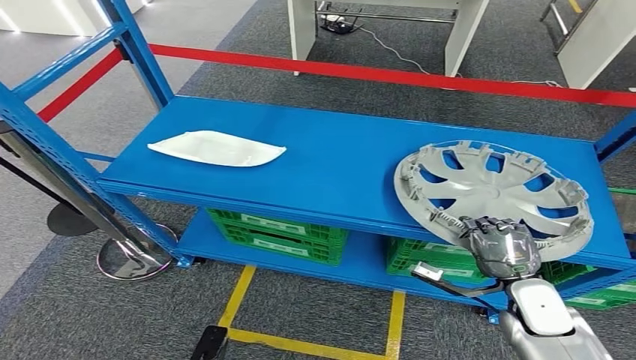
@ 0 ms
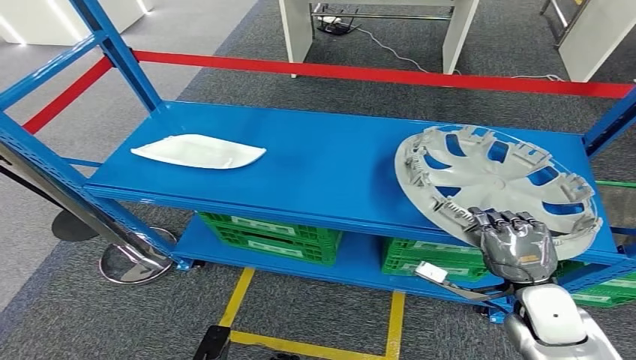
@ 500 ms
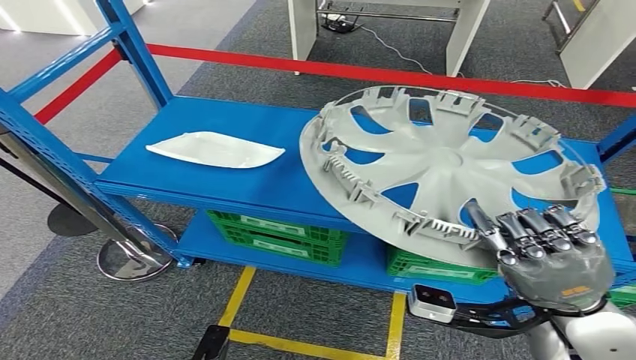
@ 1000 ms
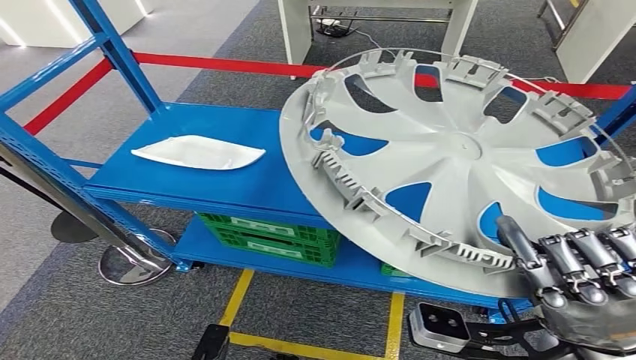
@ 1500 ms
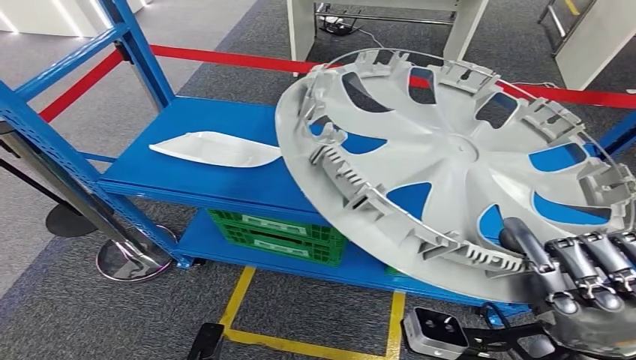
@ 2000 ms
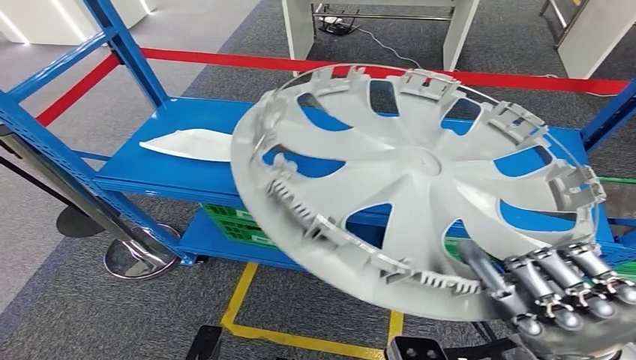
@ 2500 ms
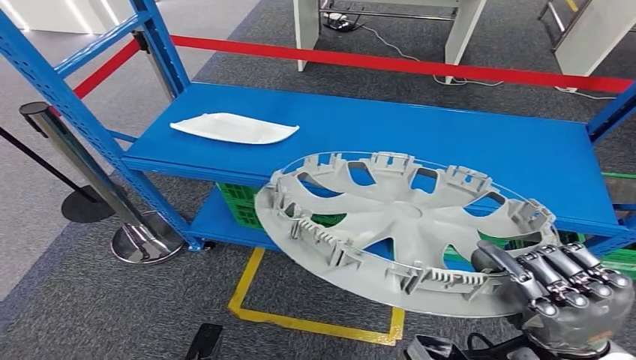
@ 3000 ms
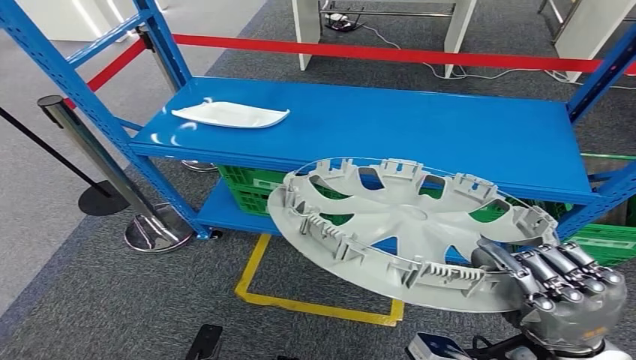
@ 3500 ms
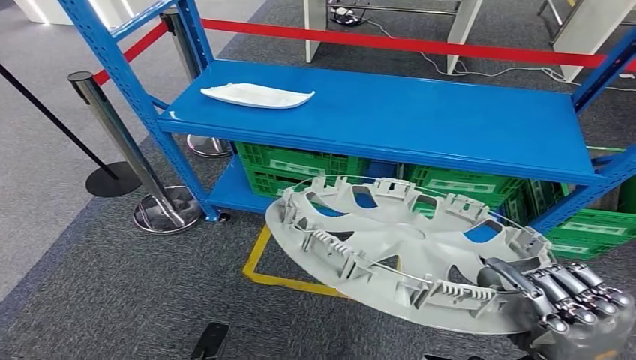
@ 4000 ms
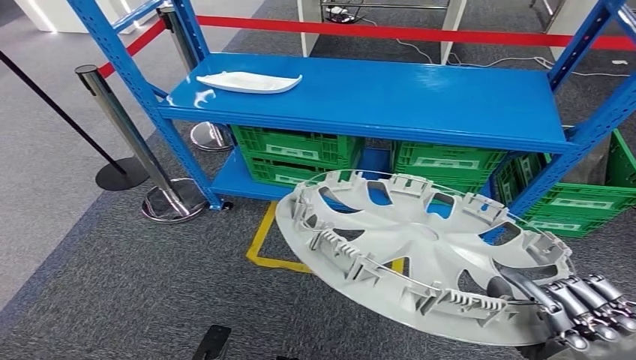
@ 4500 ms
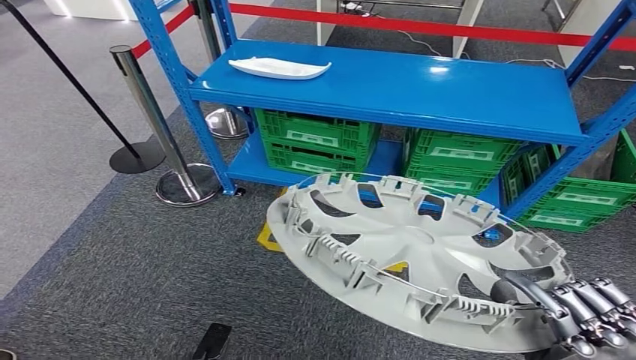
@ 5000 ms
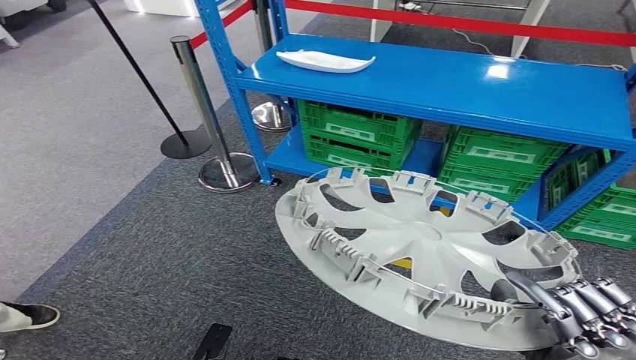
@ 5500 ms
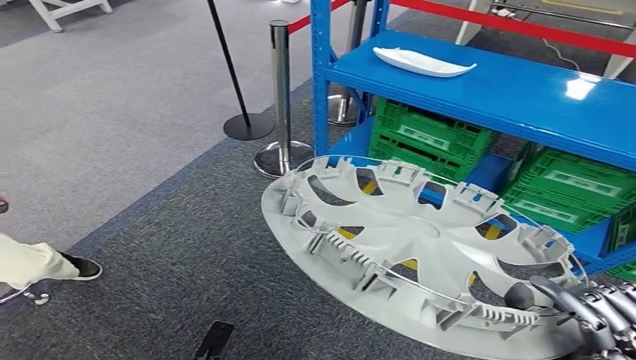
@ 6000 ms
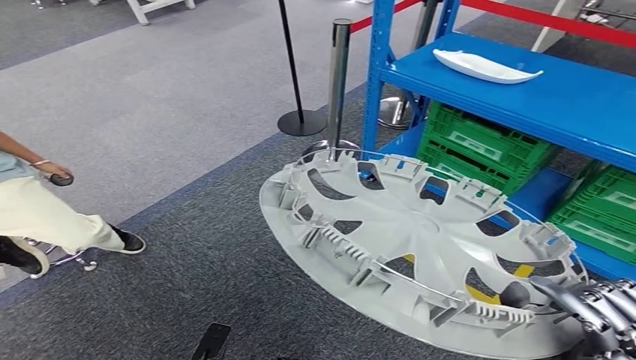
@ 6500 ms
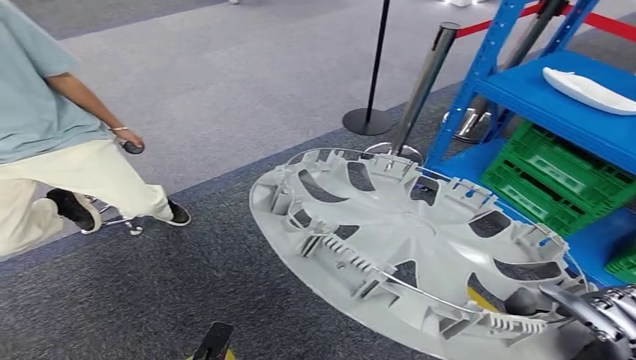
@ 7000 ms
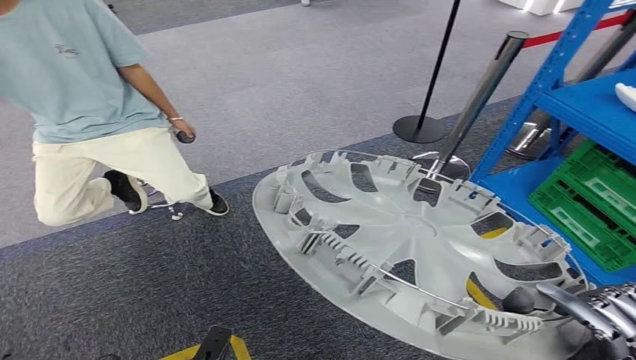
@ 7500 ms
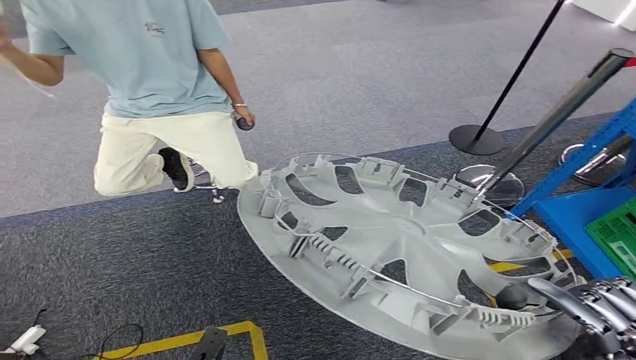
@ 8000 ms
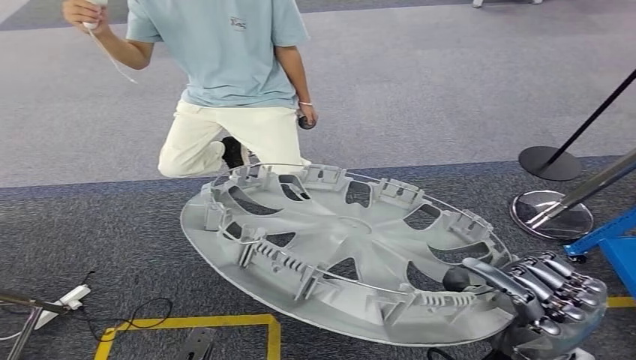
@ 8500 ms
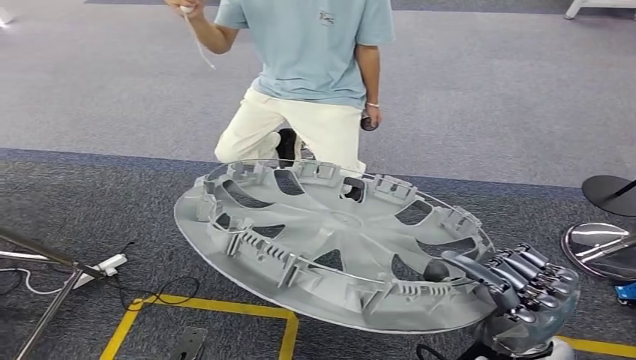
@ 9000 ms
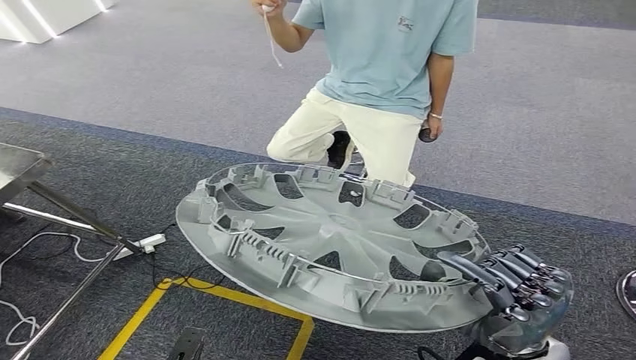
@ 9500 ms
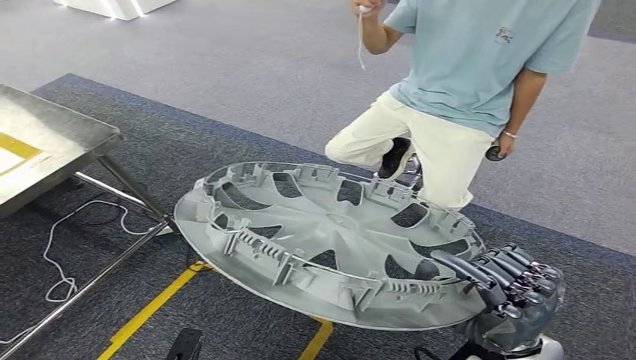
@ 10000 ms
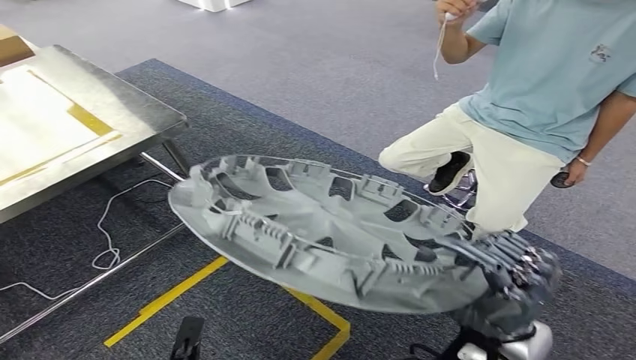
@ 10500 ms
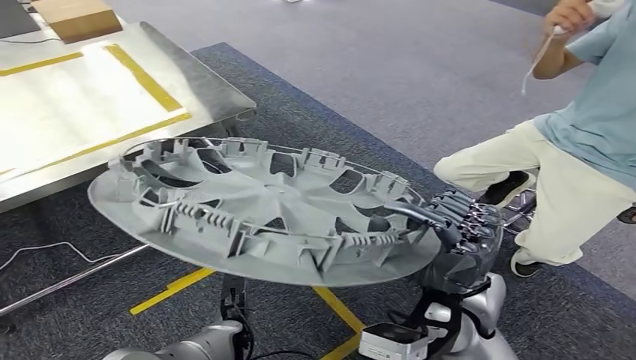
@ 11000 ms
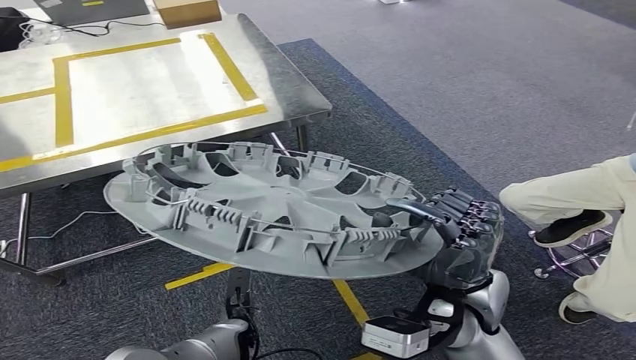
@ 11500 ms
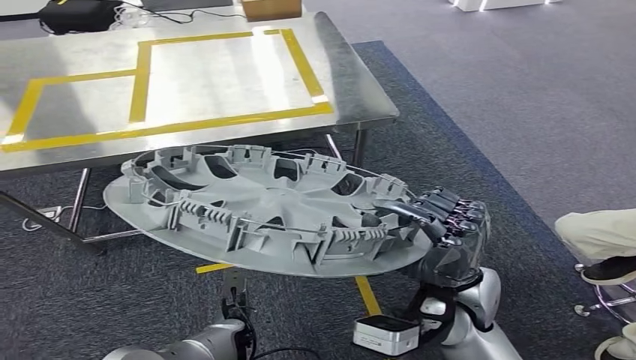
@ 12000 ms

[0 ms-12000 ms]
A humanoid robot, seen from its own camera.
Step, 0 ms to 4500 ms: Pick up the small parts from the shelf.

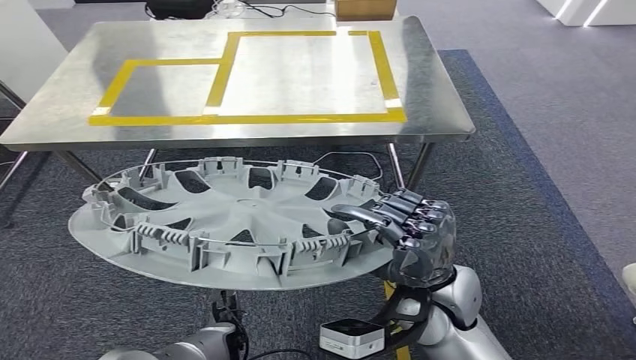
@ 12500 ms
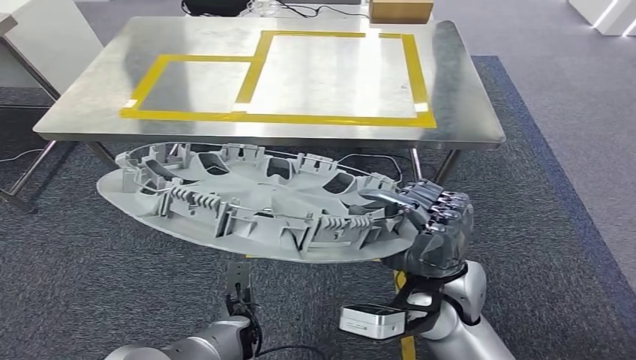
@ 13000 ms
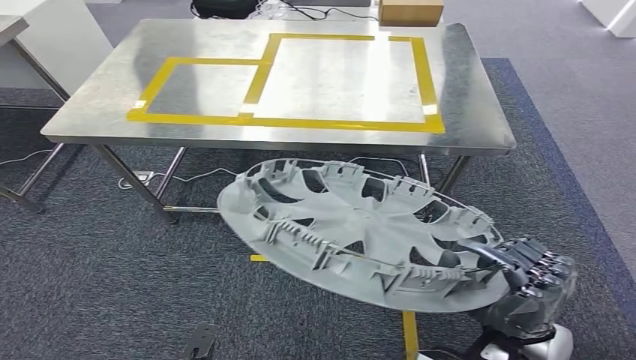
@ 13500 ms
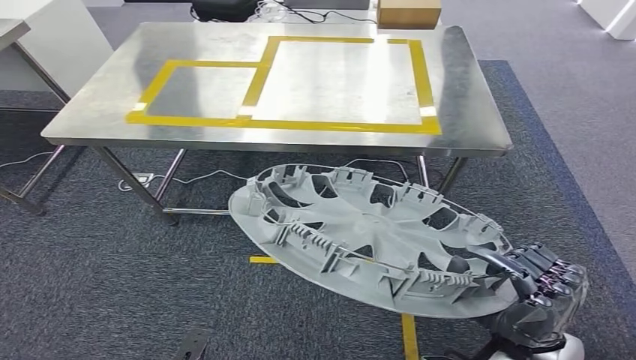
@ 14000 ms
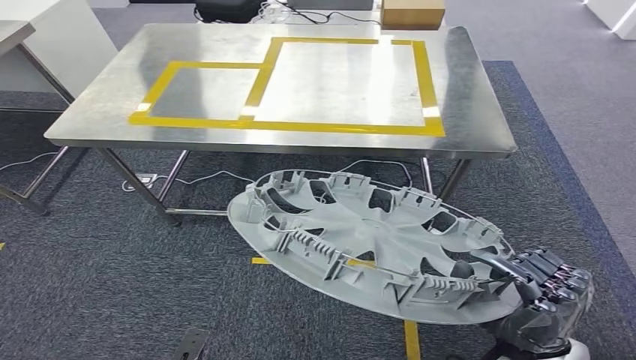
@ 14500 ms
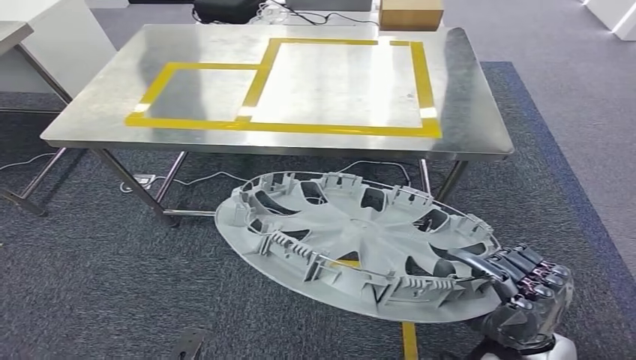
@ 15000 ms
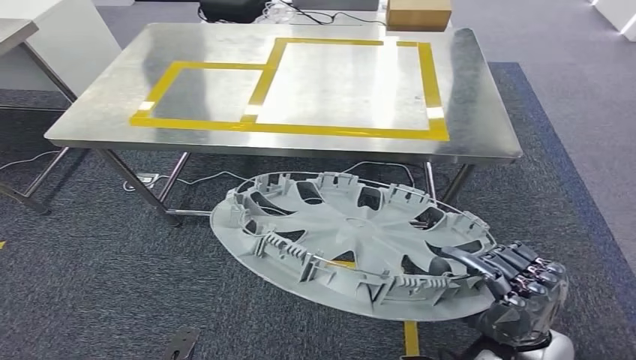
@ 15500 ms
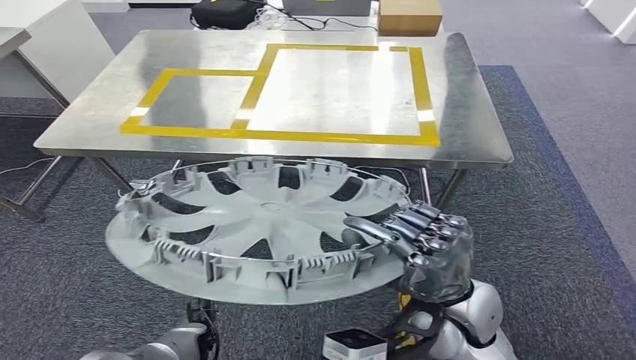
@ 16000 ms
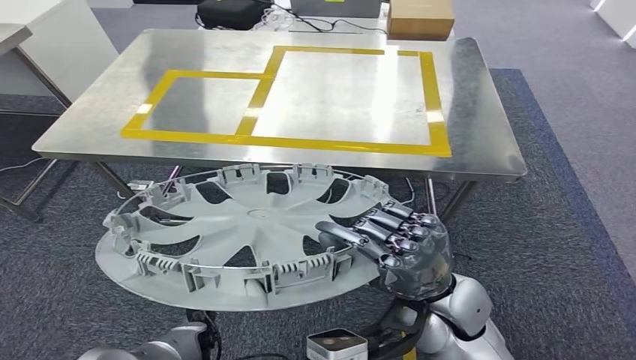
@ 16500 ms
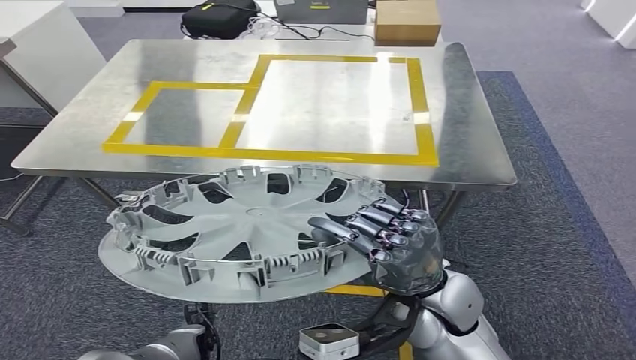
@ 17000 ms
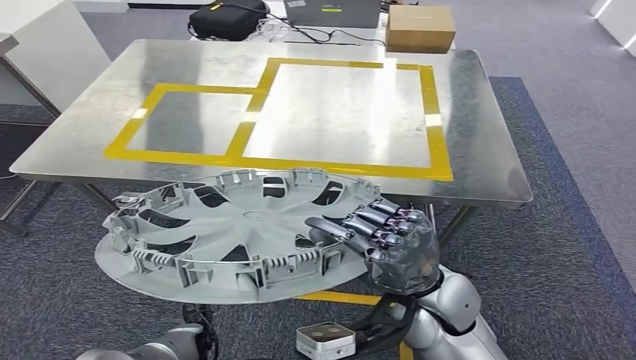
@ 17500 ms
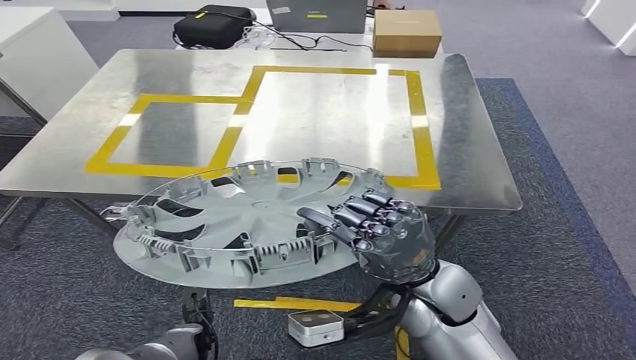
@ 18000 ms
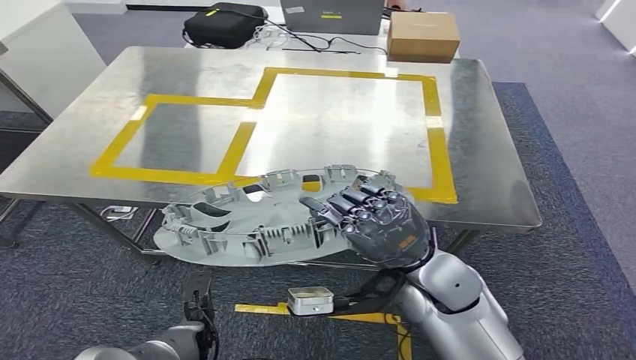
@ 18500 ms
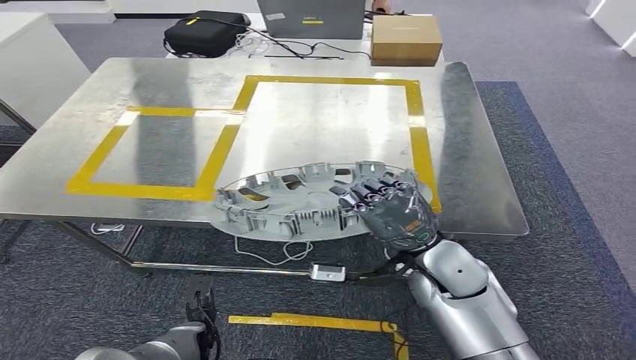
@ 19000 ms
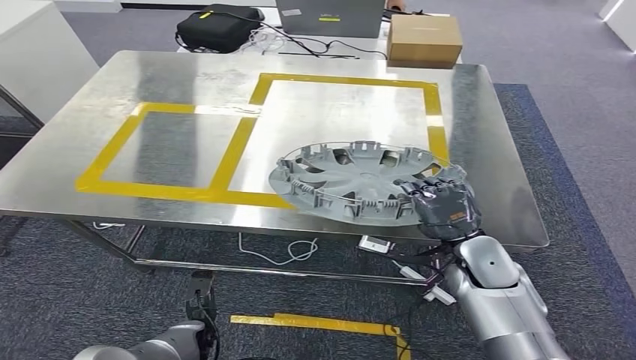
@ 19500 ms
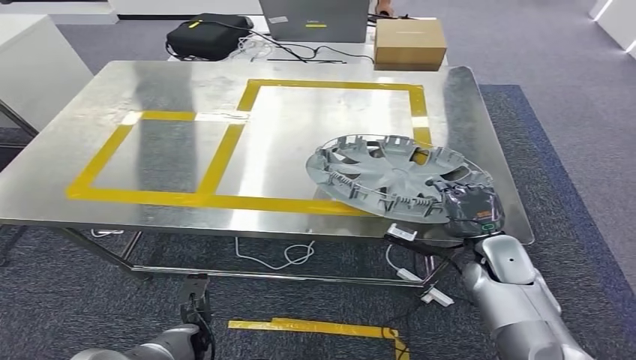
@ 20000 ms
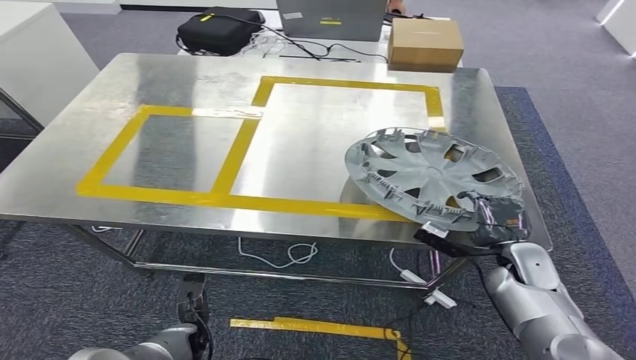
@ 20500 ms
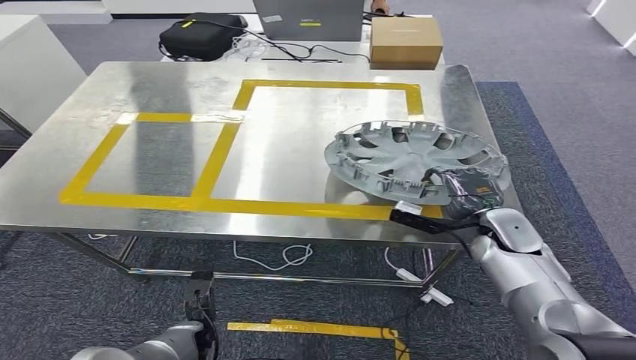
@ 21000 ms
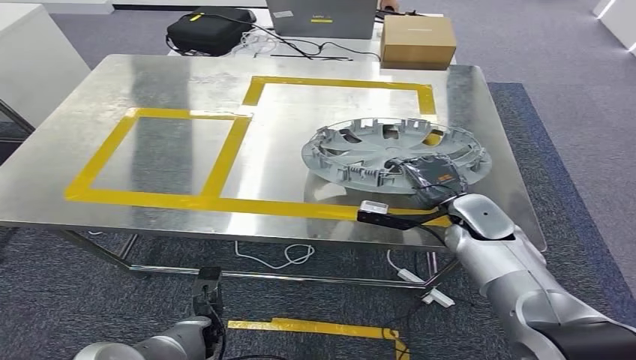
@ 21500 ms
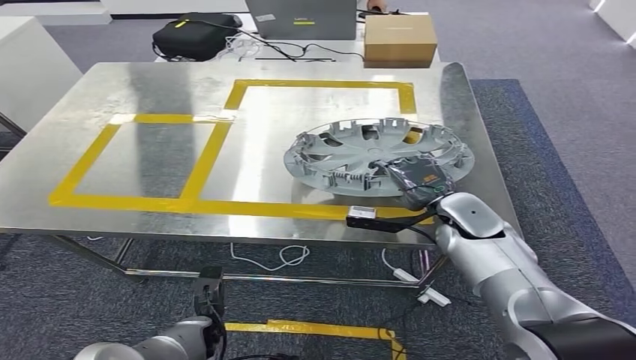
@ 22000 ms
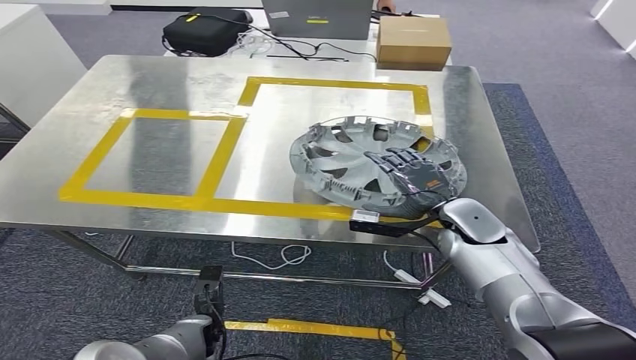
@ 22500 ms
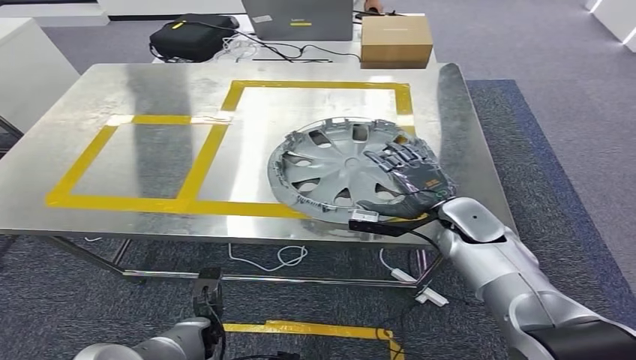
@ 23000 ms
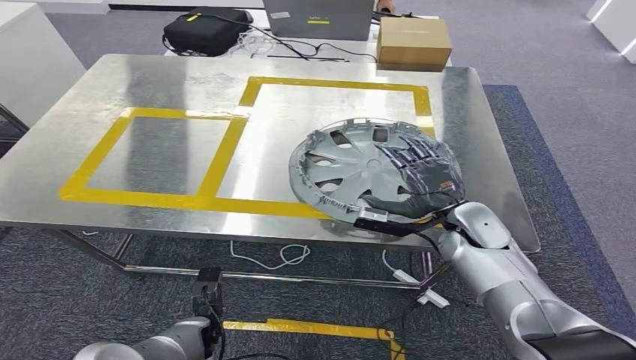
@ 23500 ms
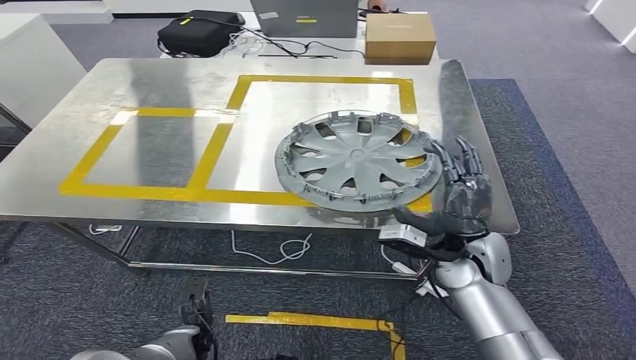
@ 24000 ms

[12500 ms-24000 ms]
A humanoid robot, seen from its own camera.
Step, 12500 ms to 17000 ms: Move the small parts to the workbench.